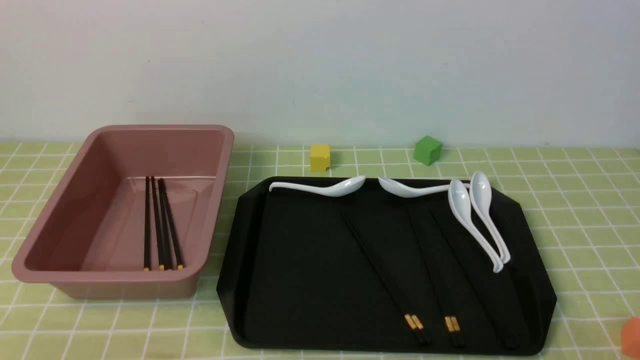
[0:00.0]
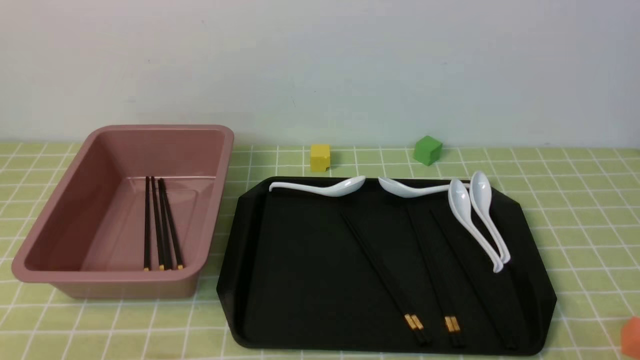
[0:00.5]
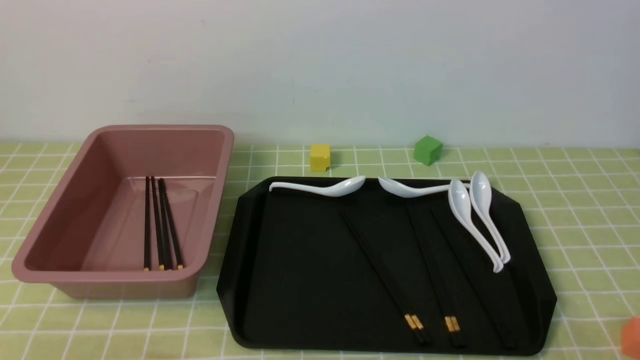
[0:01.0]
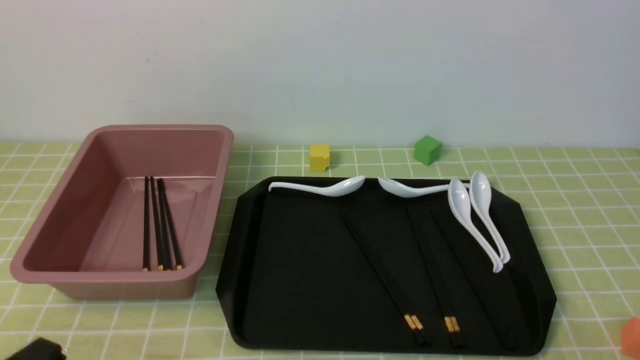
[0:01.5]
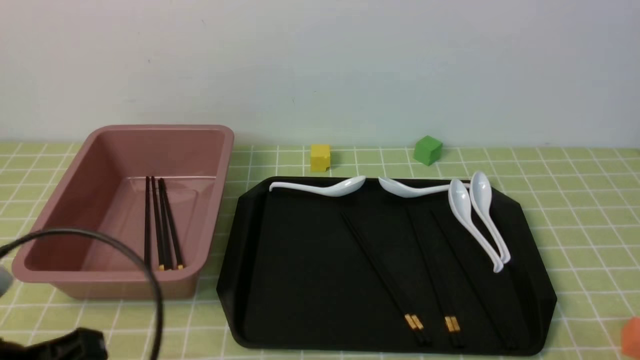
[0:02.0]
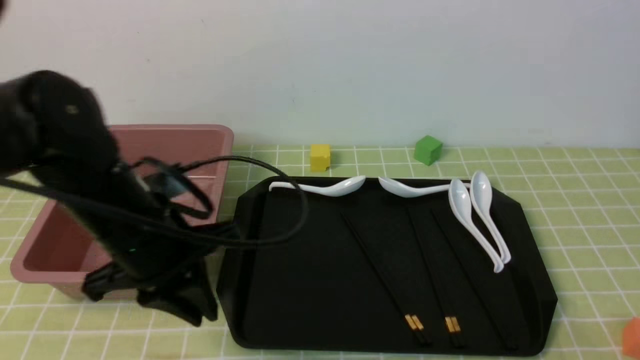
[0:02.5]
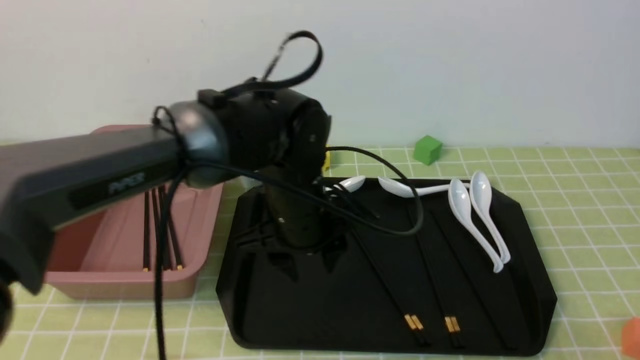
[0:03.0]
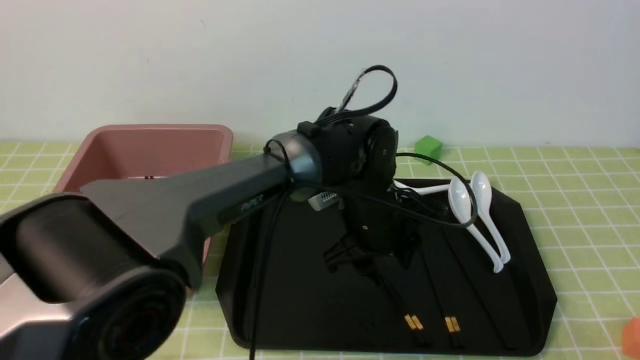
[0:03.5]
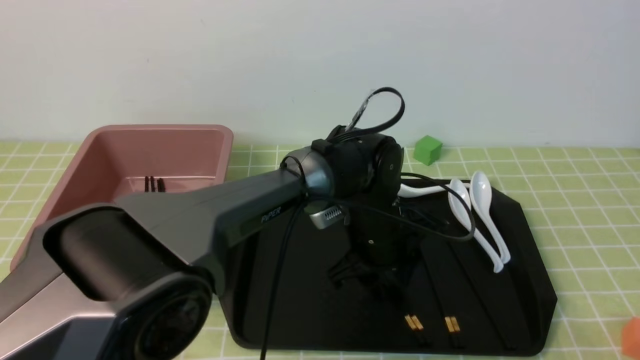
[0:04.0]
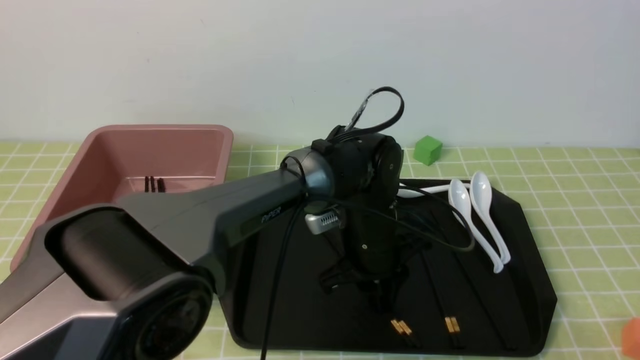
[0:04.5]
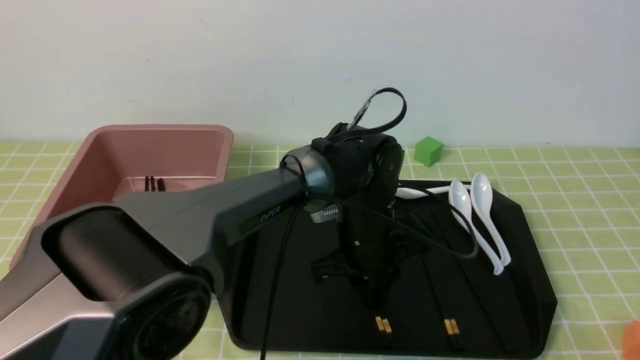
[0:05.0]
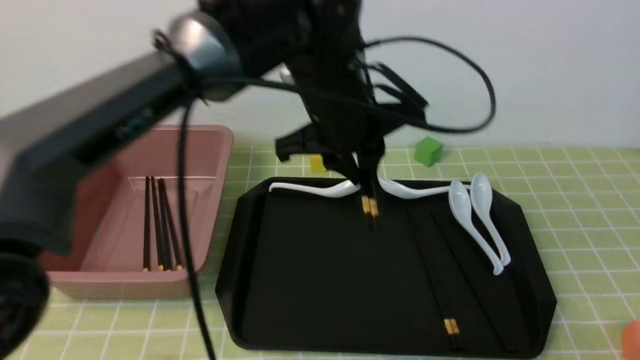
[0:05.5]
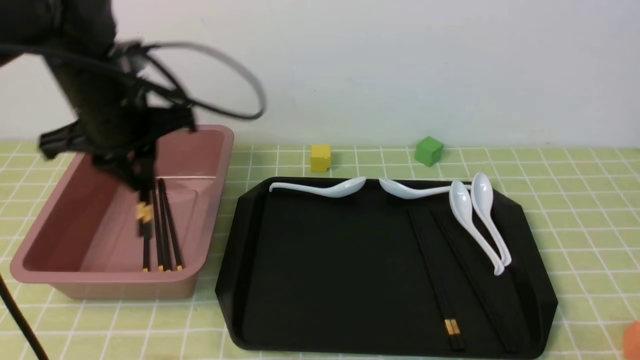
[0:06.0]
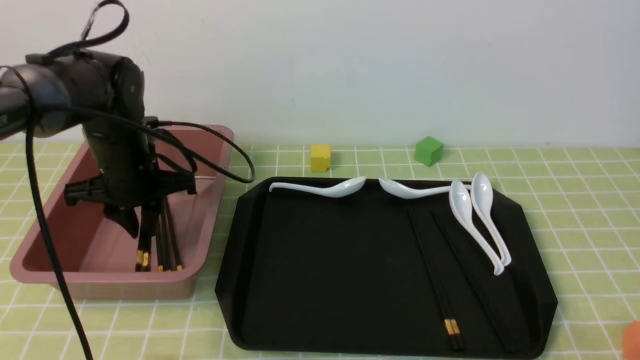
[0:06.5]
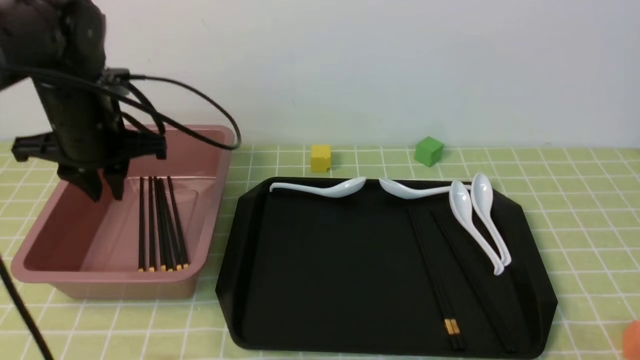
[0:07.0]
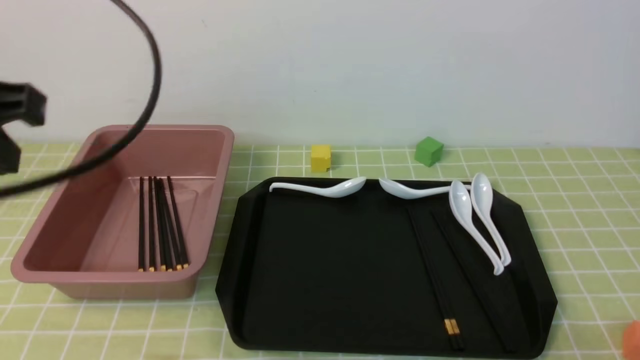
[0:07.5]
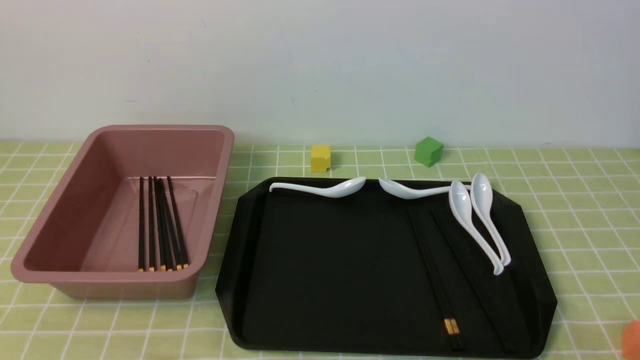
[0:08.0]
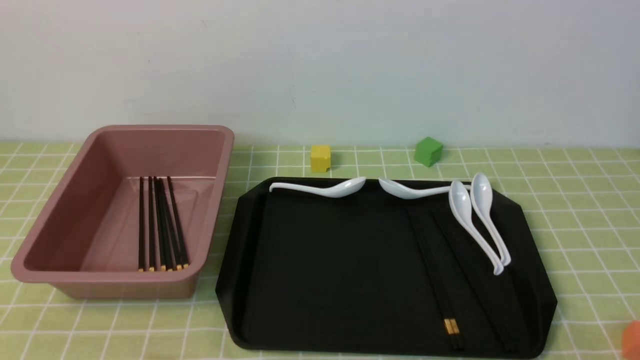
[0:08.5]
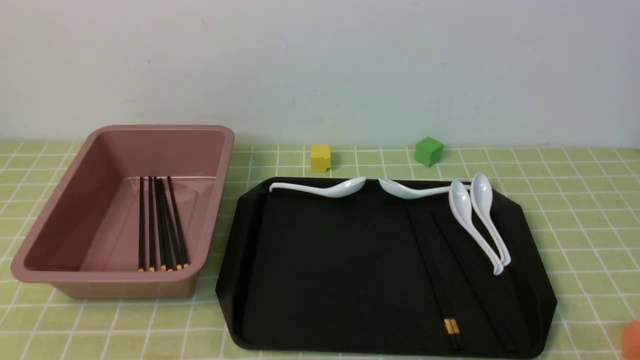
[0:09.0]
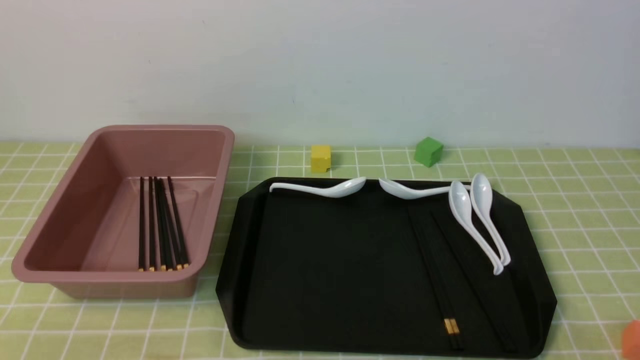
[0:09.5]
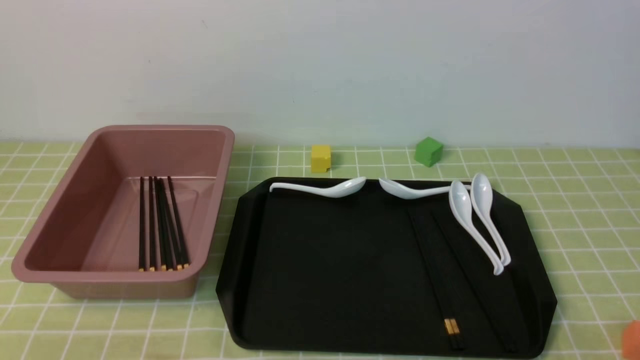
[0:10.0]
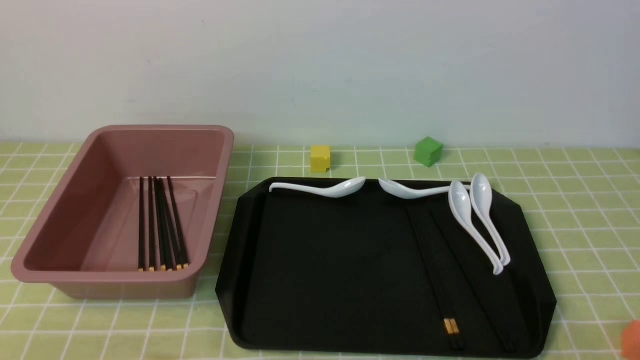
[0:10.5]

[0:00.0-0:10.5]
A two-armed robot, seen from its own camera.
Step, 0:00.0 to 0:05.0: use the left arm to grab a pair of chopsticks.
Step, 0:05.5 to 0:07.0: use the left arm to put the chopsticks into the lunch box.
0:00.0 to 0:02.0: The left gripper moves upward and forward, about 15 cm.
0:02.0 to 0:04.0: The left gripper travels to the right, forward and downward by approximately 40 cm, and opens.
0:04.0 to 0:06.5: The left gripper moves to the left, some 30 cm.
0:06.5 to 0:08.5: The left gripper shifts roughly 35 cm backward, and closes up.

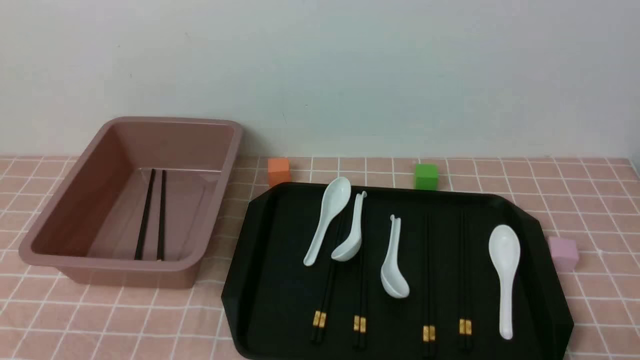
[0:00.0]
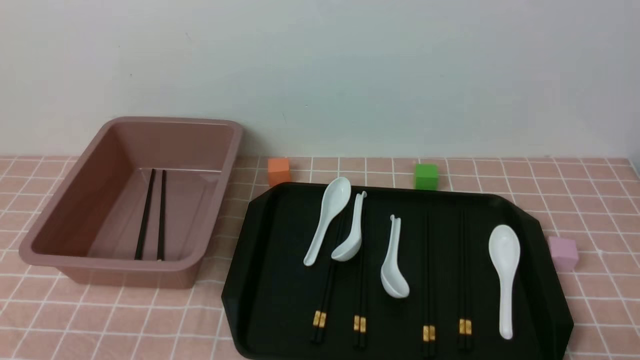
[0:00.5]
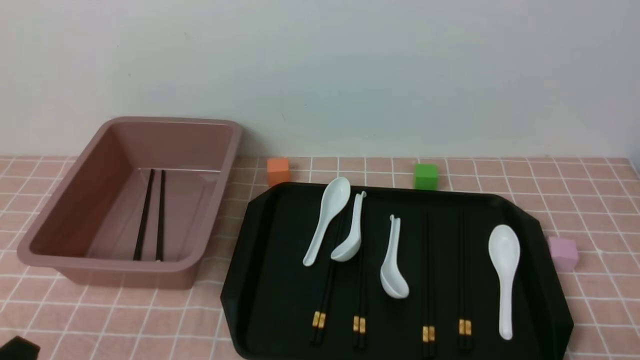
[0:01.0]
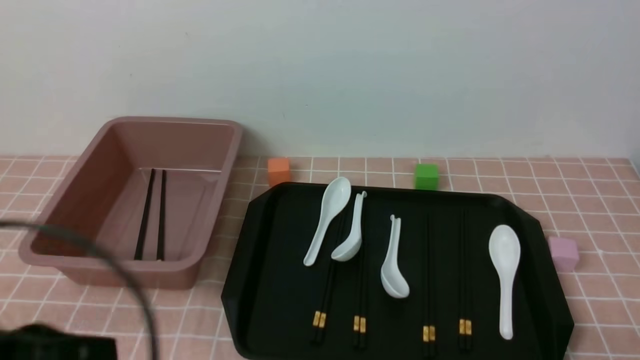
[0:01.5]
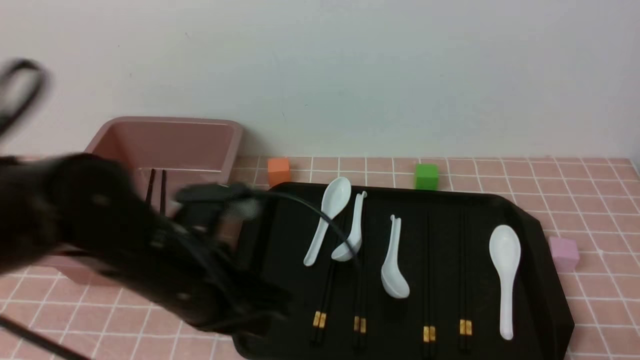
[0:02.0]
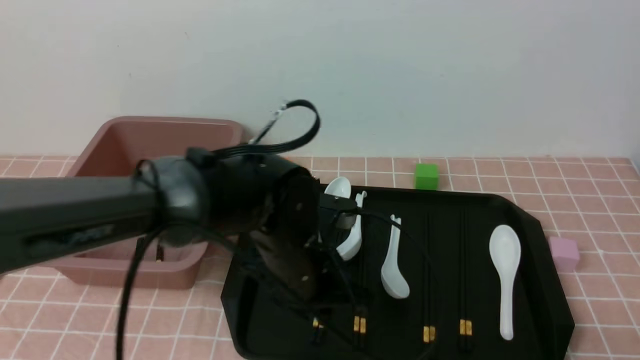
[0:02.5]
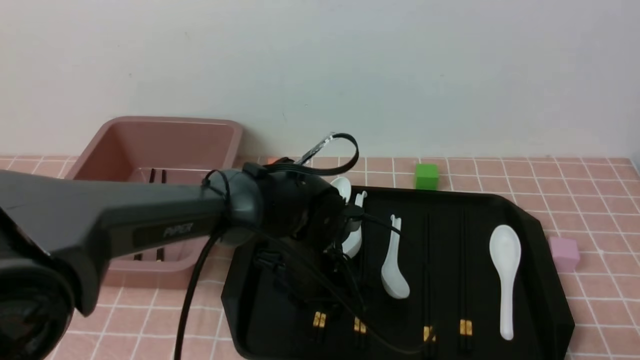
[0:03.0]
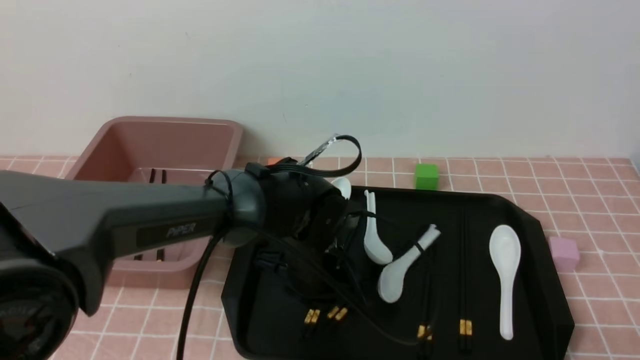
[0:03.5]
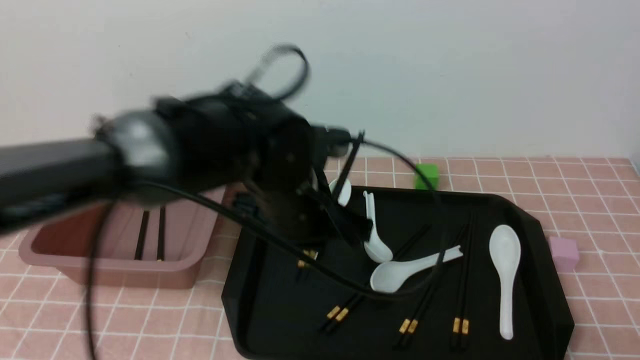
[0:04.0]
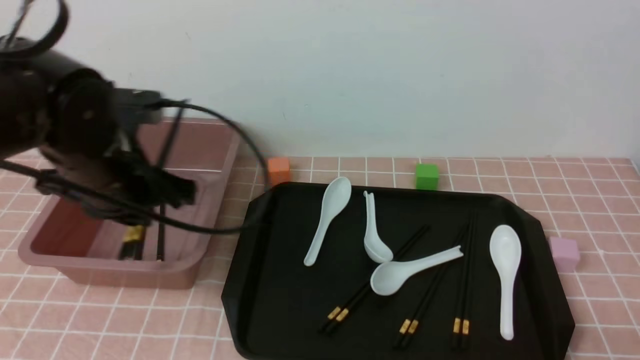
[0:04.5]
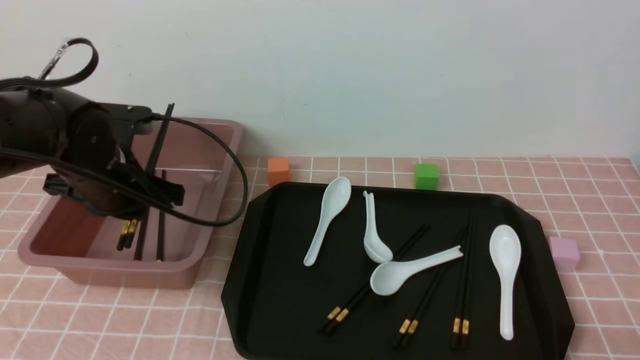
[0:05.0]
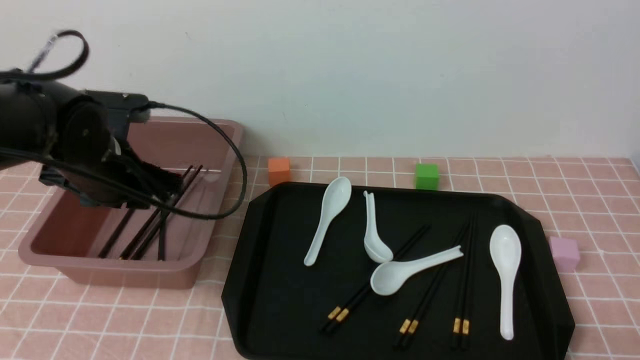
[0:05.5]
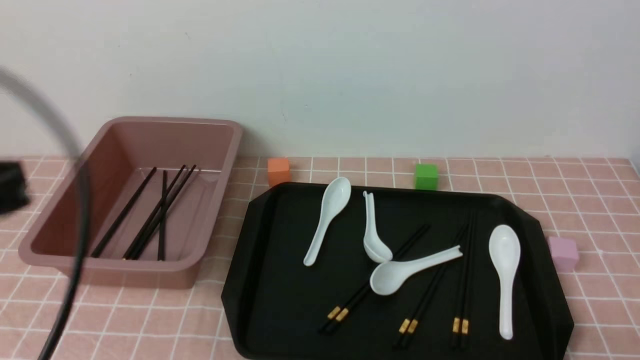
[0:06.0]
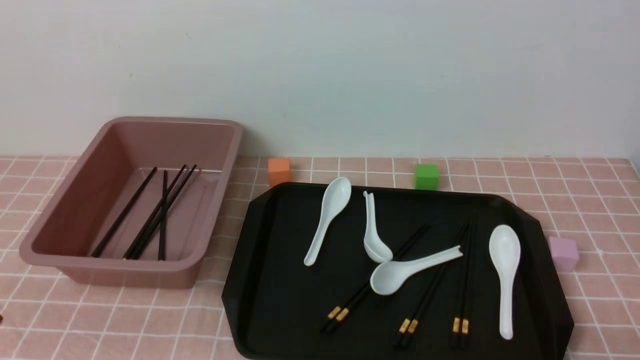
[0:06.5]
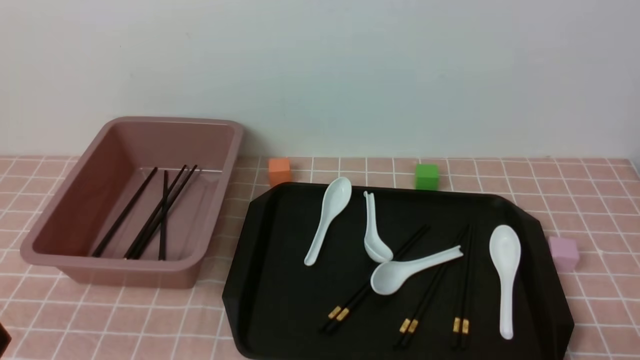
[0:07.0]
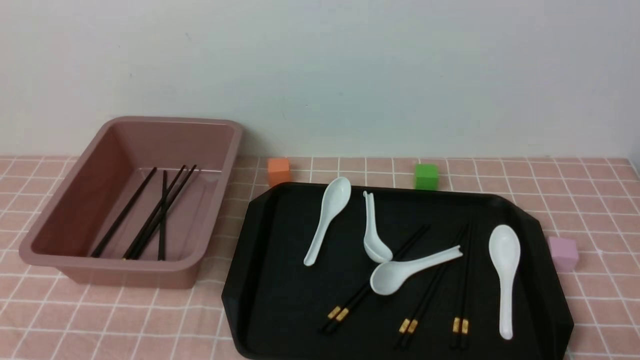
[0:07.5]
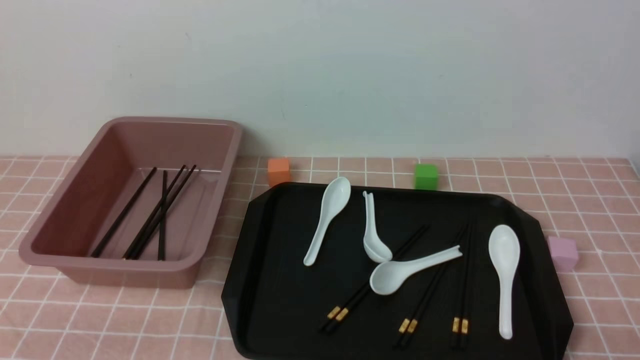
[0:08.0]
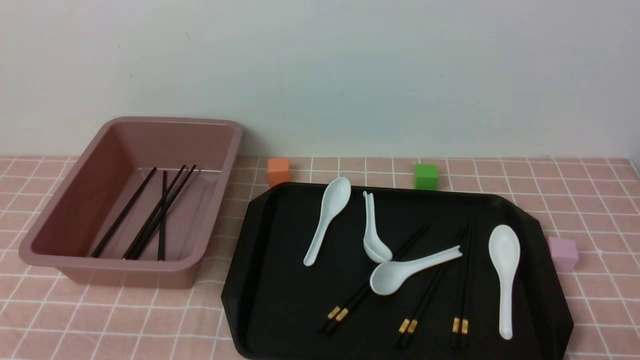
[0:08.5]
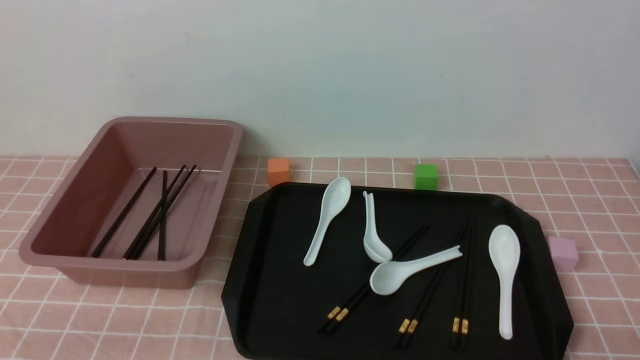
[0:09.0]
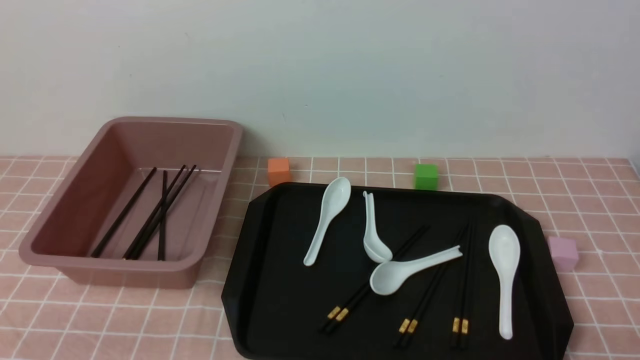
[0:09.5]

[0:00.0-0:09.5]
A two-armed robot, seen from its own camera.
Step, 0:00.0 to 0:04.0: use the left arm to grab a pair of chopsticks.
Step, 0:04.5 to 0:05.5: use the left arm to put the chopsticks into the lunch box.
0:02.0 to 0:04.0: The left gripper shifts some 15 cm to the right and forward, and opens its fingers.
0:04.0 to 0:05.5: The left gripper heads to the left, covering about 20 cm.
0:05.5 to 0:07.5: The left gripper is displaced backward by roughly 30 cm, and closes up.
0:07.5 to 0:09.5: Neither gripper changes place.
